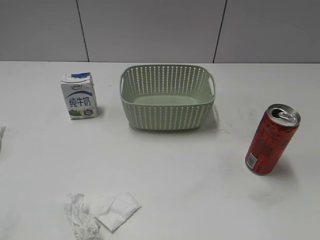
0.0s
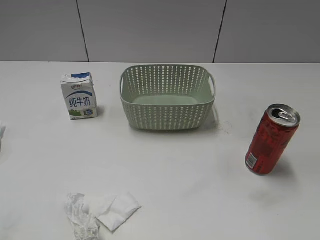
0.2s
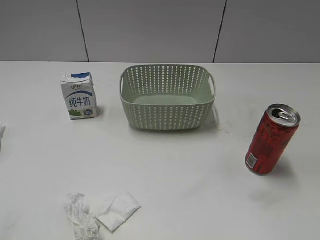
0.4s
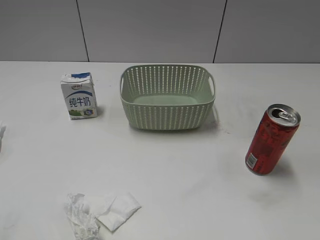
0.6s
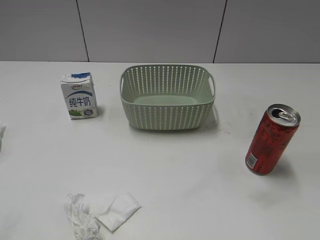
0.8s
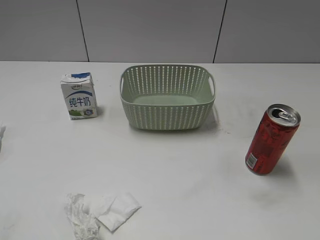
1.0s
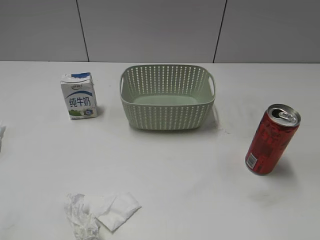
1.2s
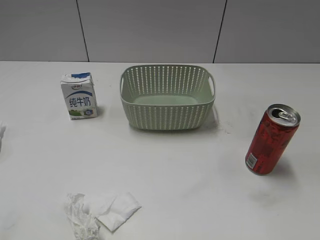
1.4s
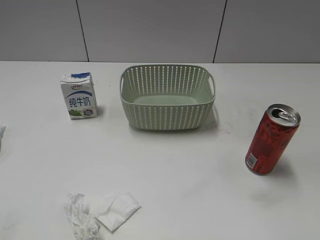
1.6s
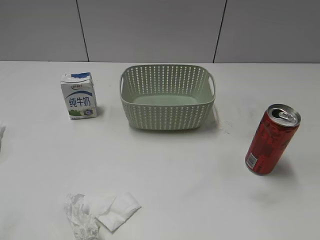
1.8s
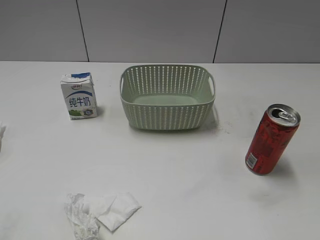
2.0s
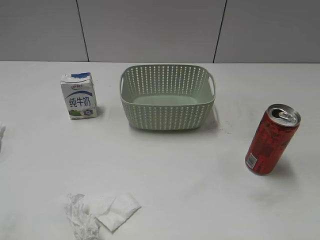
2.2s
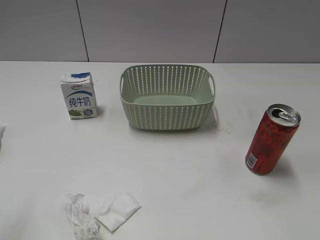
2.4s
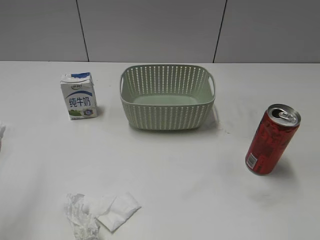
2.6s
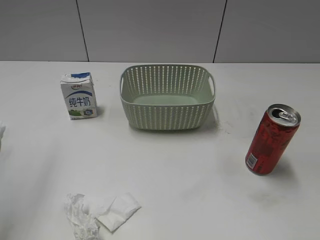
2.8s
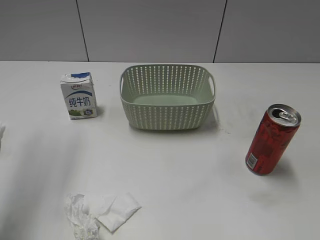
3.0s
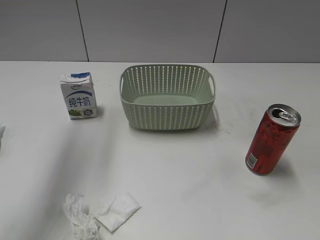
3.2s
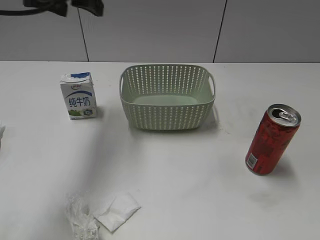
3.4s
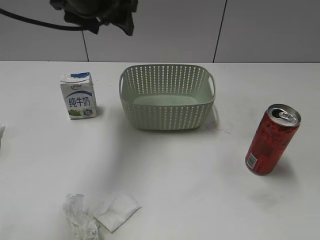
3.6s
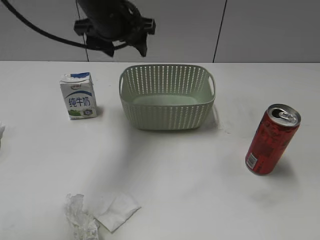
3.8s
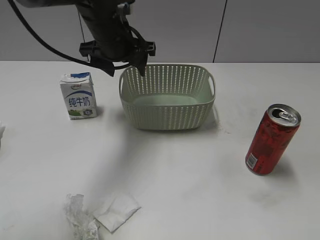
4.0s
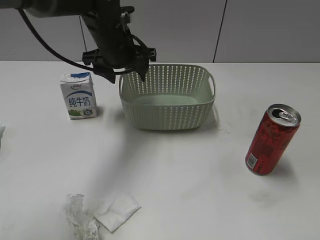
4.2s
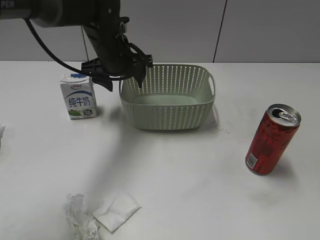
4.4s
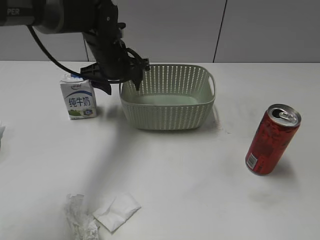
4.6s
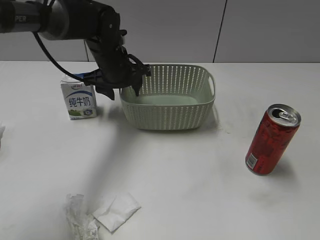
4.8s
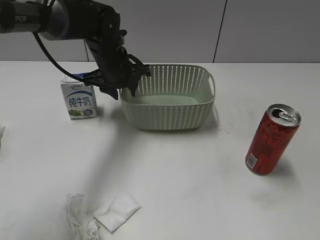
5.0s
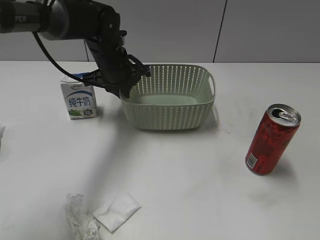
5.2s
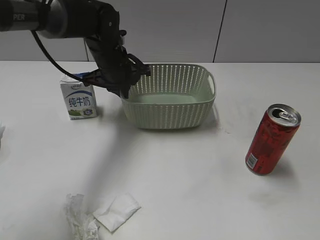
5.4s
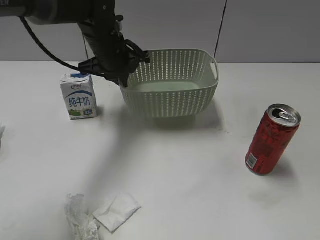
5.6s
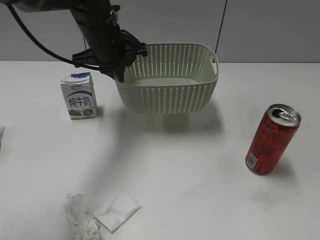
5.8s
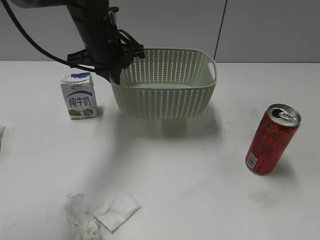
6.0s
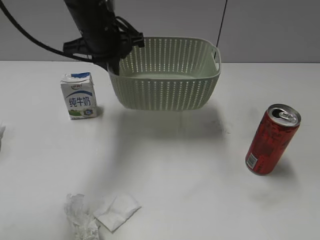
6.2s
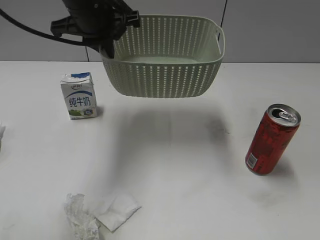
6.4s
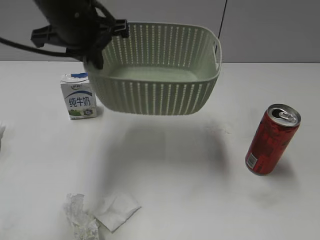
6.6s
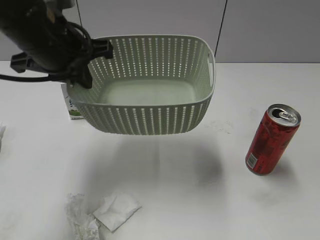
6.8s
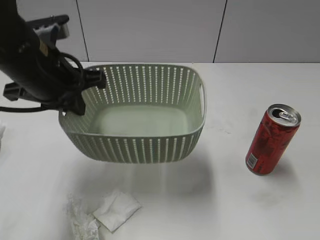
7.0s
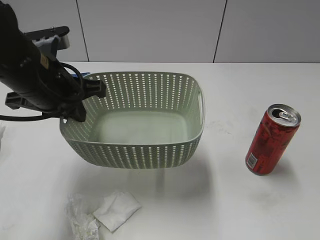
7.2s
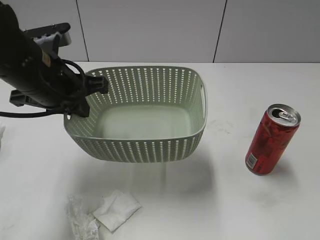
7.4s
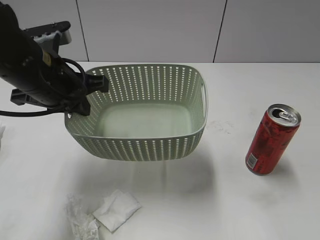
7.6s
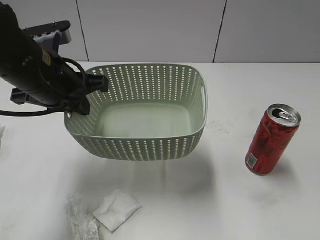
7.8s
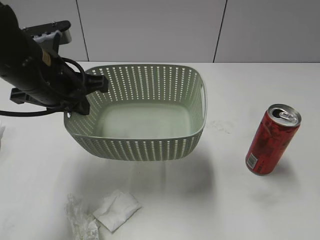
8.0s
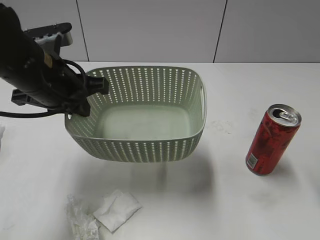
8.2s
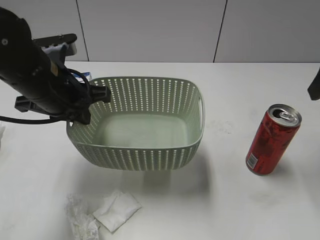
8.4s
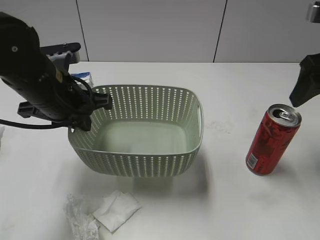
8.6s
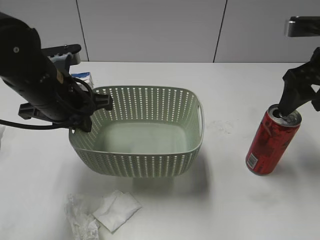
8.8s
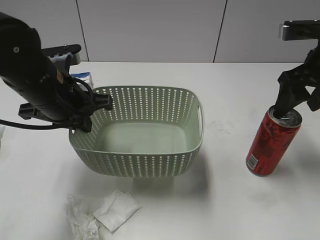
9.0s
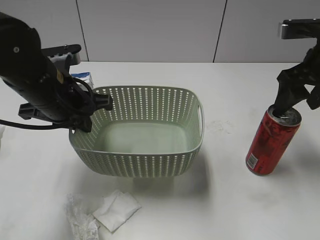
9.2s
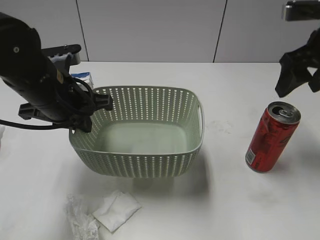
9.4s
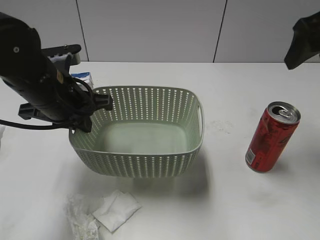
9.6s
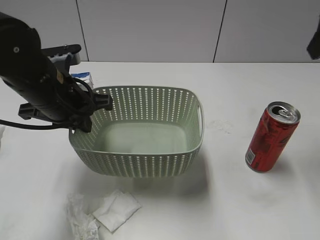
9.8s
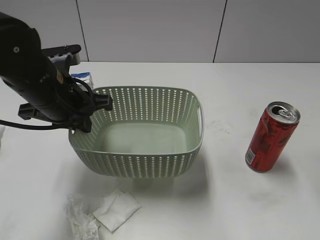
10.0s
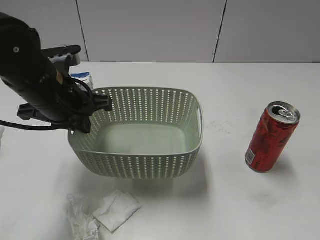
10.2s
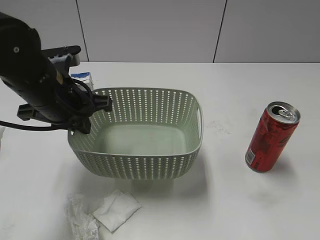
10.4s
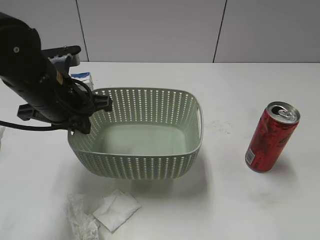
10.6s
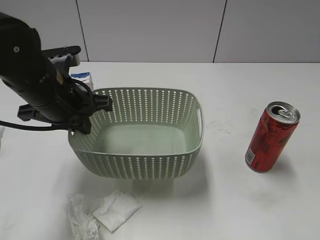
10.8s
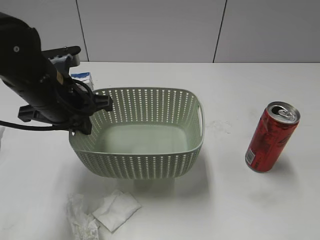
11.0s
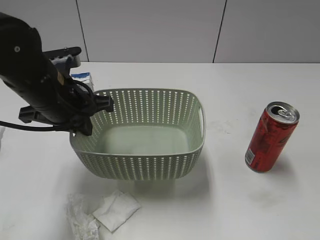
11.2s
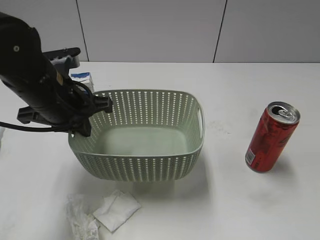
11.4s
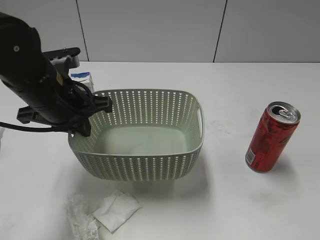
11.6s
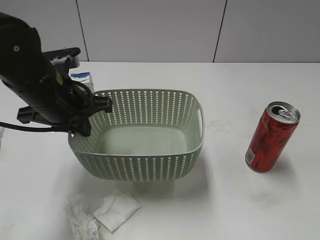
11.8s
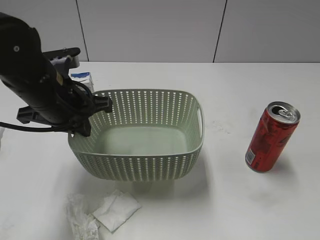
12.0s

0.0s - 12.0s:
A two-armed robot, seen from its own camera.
Step, 3.4s - 5.4s: Grasp the basket with left gripper.
Step, 5.6s - 8.2s: Lift the basket with left gripper.
1.6s - 3.0s: The left gripper moves forward, approximately 25 cm.
3.0s - 4.4s: The left gripper is displaced to the right, downward and forward by about 30 cm.
4.4s - 6.0s: The left gripper closes up.
6.0s - 7.6s: The left gripper heads backward and to the left, covering about 15 cm; the right gripper heads upward, covering approximately 10 cm.
7.6s - 9.0s: The right gripper travels forward by some 25 cm.
9.0s - 10.4s: The right gripper shifts roughly 20 cm backward and upward.
10.4s - 12.0s: The right gripper travels backward by some 10 cm.

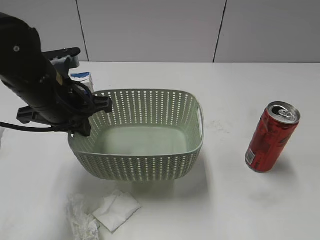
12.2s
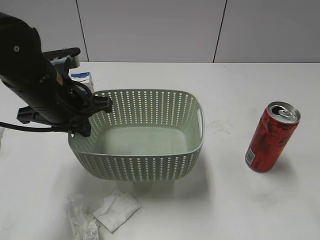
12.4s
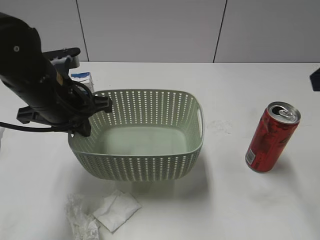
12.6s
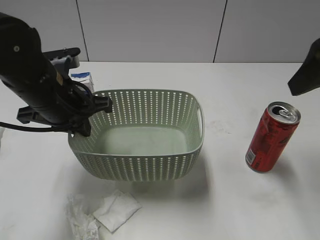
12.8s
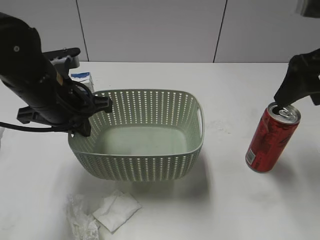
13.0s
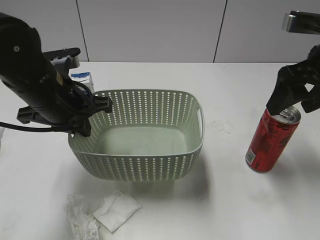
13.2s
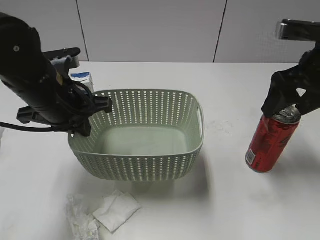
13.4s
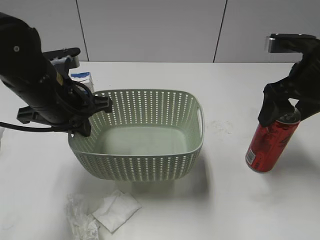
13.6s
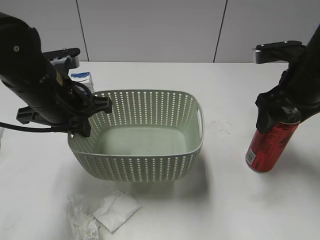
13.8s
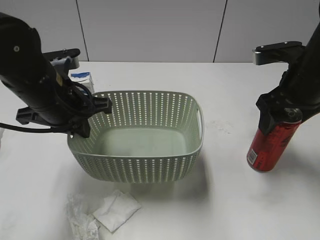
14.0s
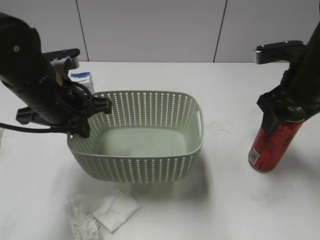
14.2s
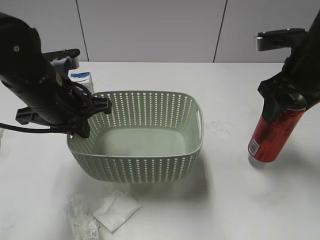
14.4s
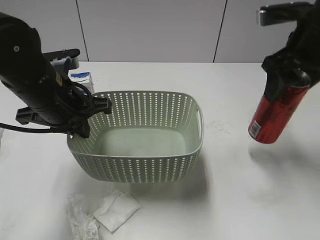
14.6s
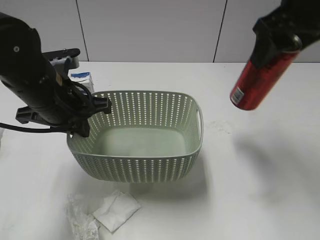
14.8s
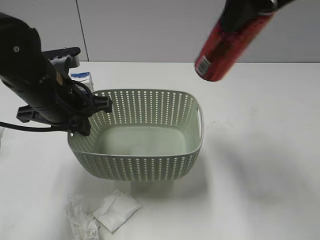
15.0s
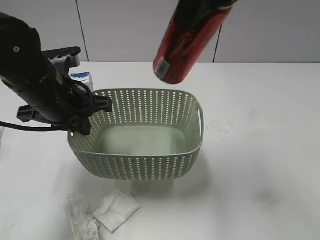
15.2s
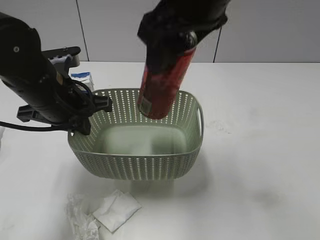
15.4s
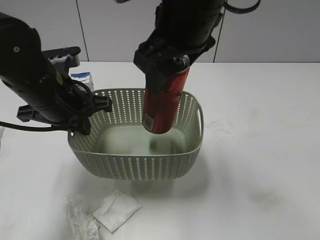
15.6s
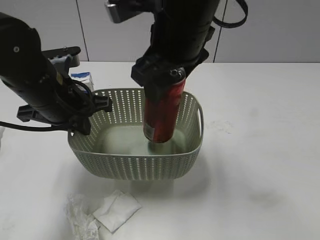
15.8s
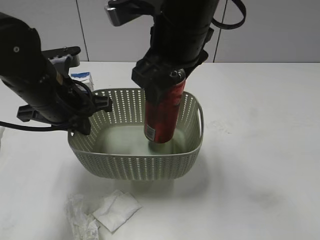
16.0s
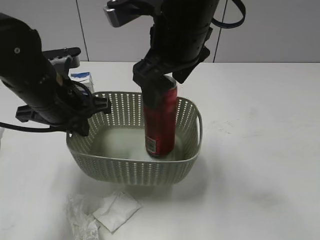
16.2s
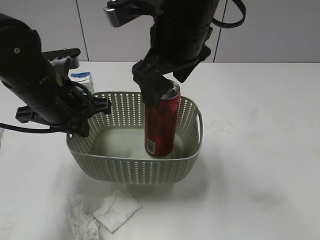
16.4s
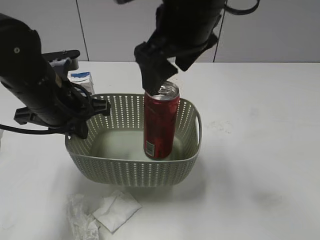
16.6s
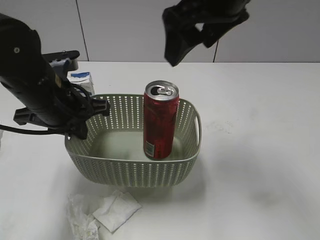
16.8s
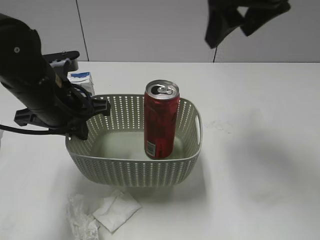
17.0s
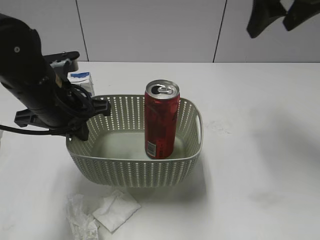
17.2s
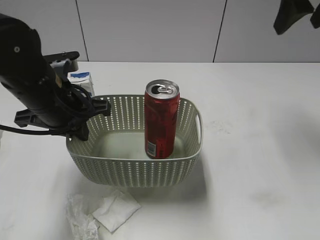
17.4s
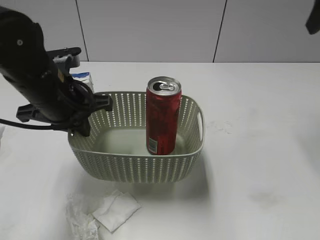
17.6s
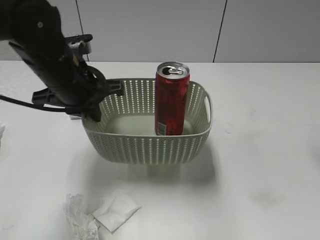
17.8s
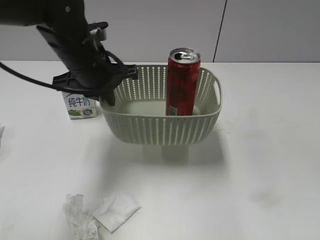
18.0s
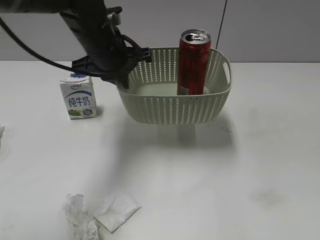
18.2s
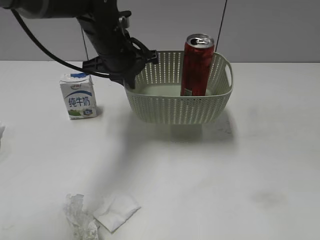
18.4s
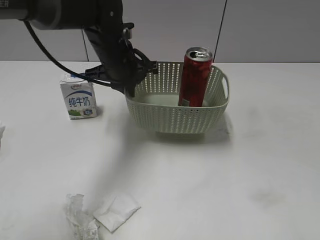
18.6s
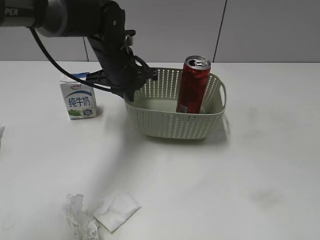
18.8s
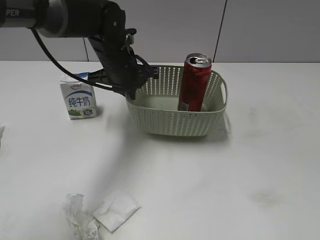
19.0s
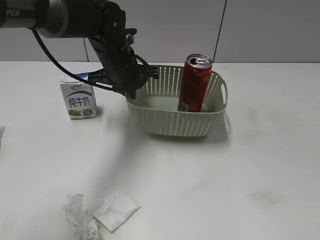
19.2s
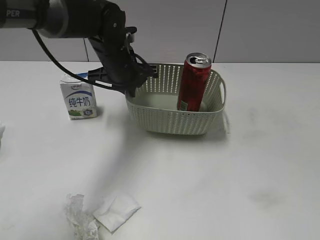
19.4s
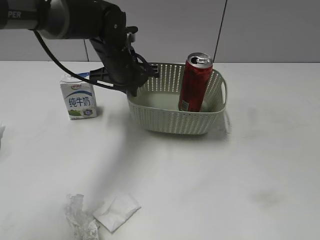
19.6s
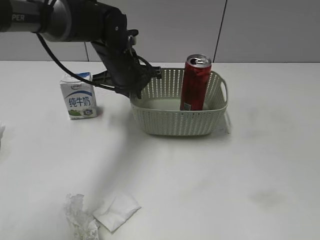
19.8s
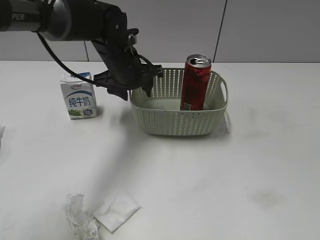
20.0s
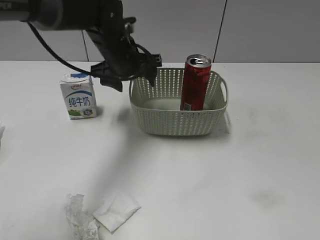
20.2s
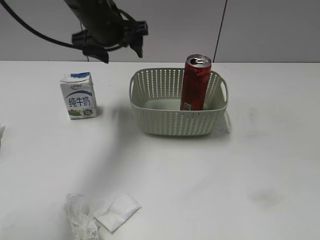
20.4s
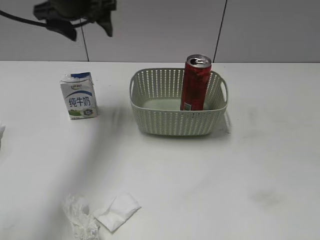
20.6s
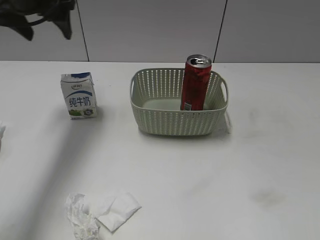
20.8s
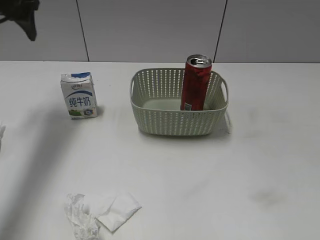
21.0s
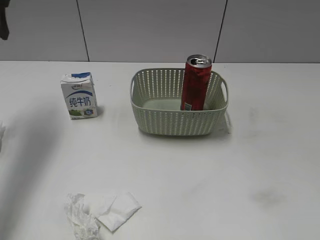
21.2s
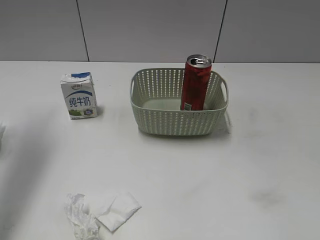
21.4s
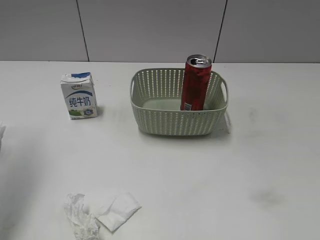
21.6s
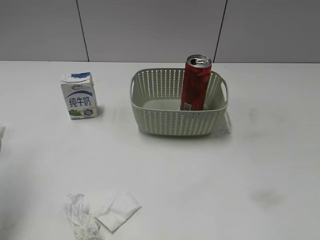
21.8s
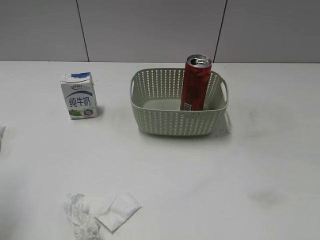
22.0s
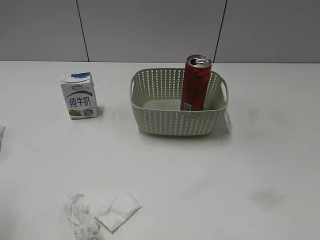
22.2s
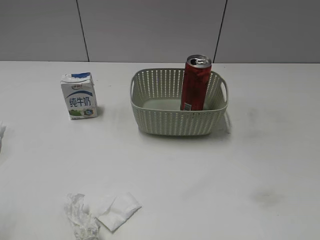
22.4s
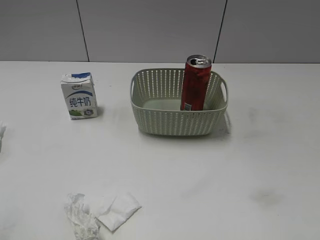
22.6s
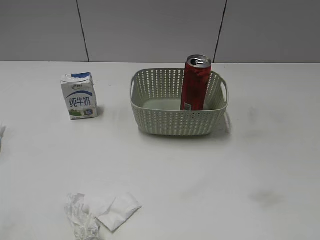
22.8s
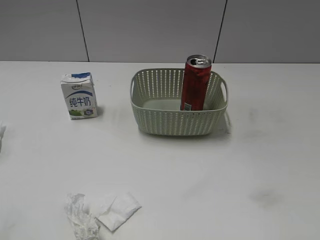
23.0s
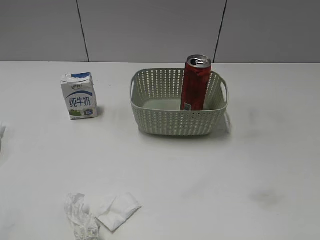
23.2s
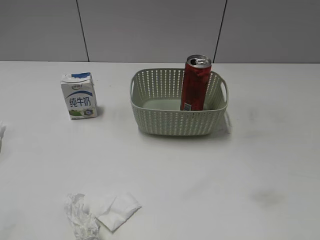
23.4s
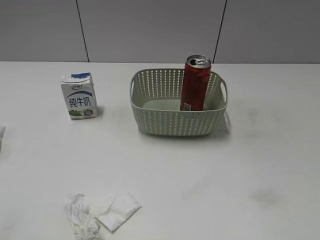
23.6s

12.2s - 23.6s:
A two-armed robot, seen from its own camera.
Step, 14.2s - 16.2s: Place the cola can in the basket with right gripper.
Step, 16.4s - 19.8s: Place the basket on the table with left gripper.
12.2s - 13.6s: The right gripper is displaced forward by roughly 25 cm.
13.6s - 15.0s: The right gripper goes approximately 20 cm upward and to the left, and closes up.
15.0s - 16.4s: The right gripper travels to the left and downward by roughly 15 cm, and opens its fingers.
16.4s - 17.8s: The right gripper travels to the right by approximately 25 cm.
17.8s - 19.4s: The left gripper shifts about 10 cm forward and to the right; the right gripper shifts about 30 cm backward.
19.4s - 20.8s: The left gripper heads upward and to the left, covering approximately 20 cm, and opens.
20.8s - 22.2s: The left gripper goes roughly 30 cm backward and to the left.
